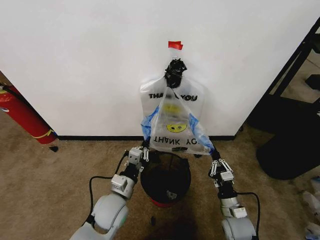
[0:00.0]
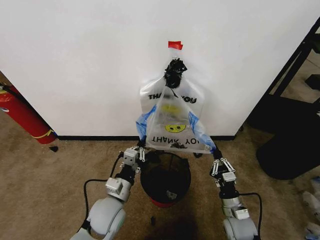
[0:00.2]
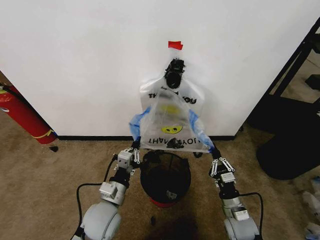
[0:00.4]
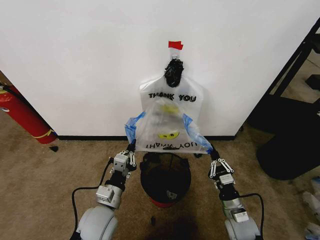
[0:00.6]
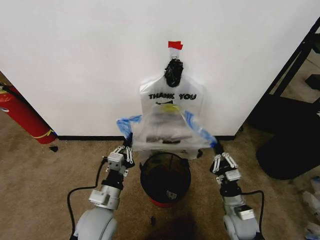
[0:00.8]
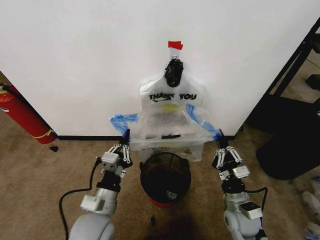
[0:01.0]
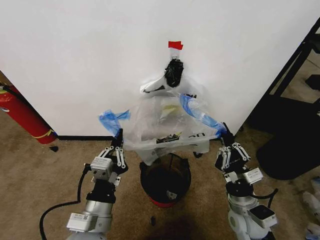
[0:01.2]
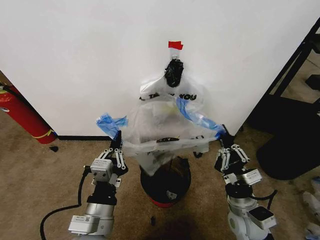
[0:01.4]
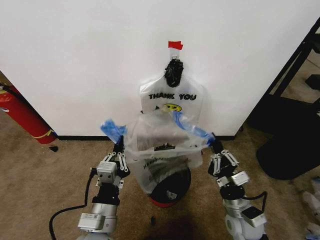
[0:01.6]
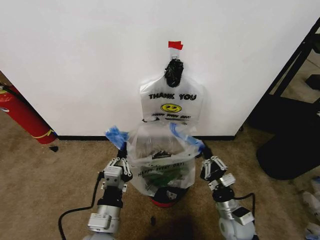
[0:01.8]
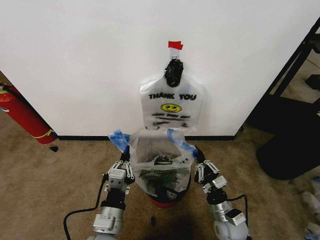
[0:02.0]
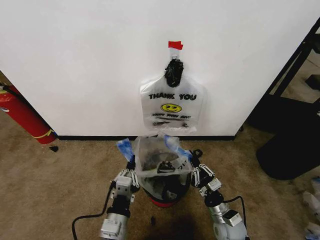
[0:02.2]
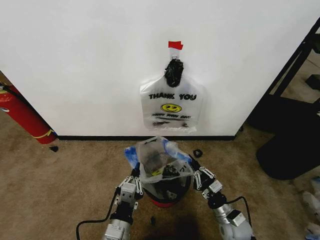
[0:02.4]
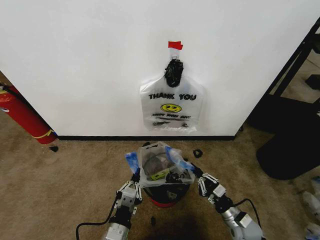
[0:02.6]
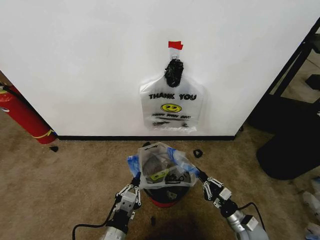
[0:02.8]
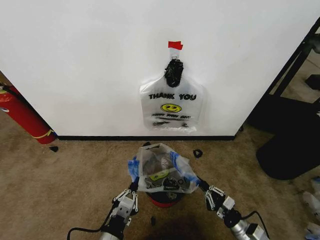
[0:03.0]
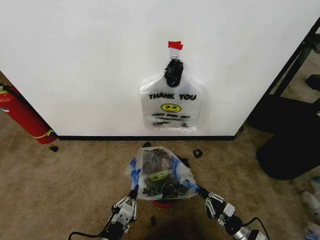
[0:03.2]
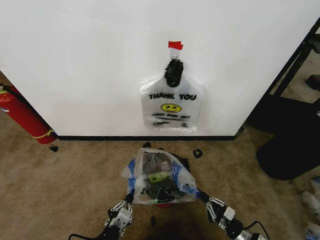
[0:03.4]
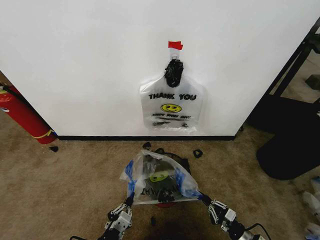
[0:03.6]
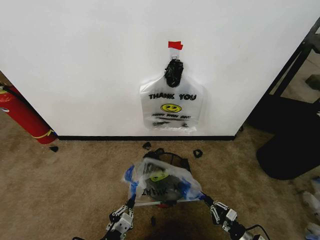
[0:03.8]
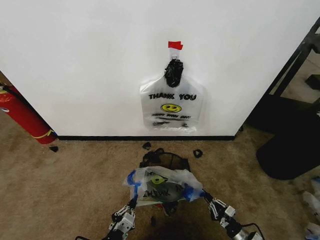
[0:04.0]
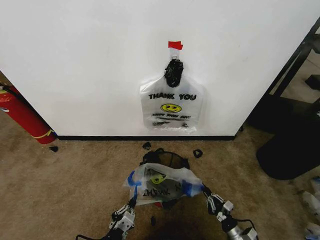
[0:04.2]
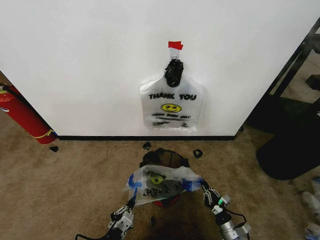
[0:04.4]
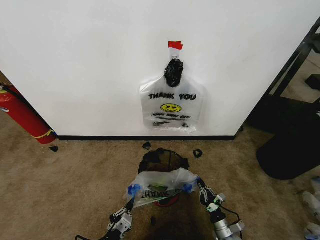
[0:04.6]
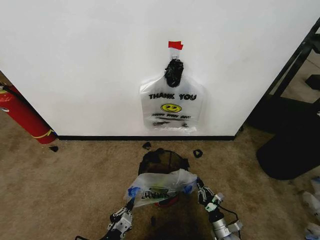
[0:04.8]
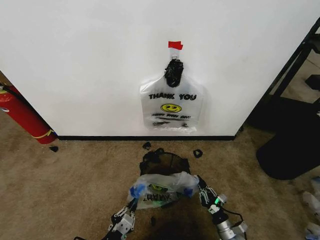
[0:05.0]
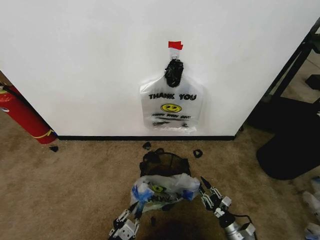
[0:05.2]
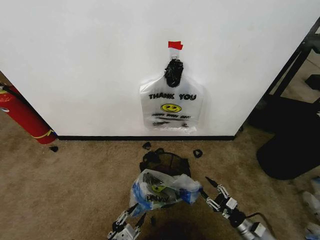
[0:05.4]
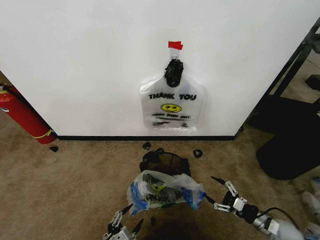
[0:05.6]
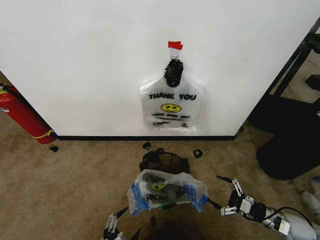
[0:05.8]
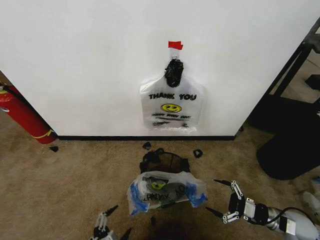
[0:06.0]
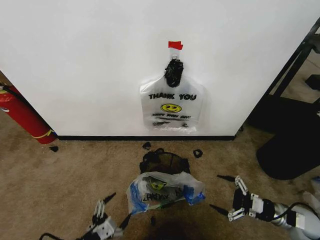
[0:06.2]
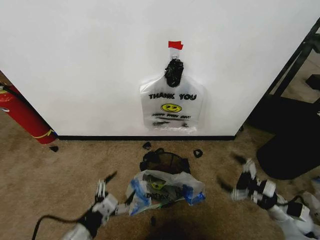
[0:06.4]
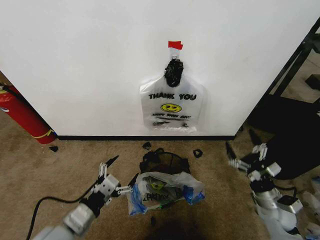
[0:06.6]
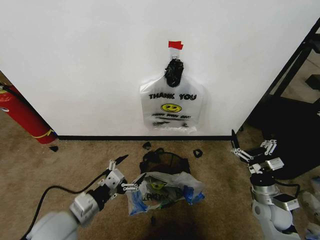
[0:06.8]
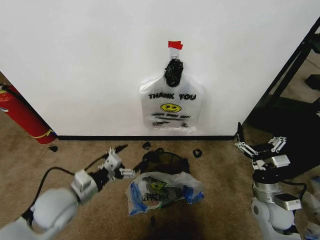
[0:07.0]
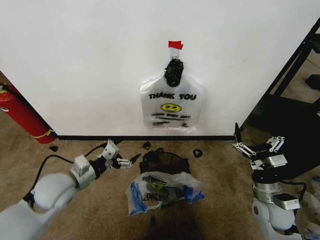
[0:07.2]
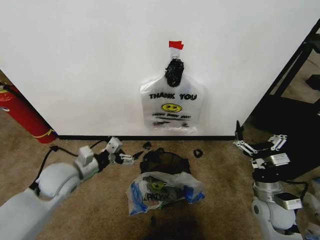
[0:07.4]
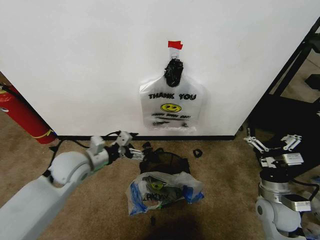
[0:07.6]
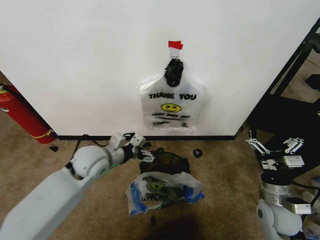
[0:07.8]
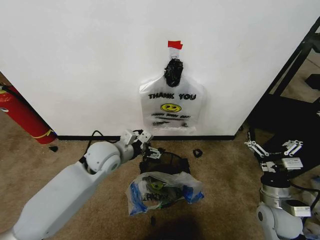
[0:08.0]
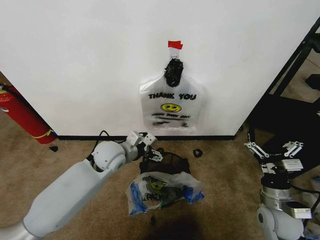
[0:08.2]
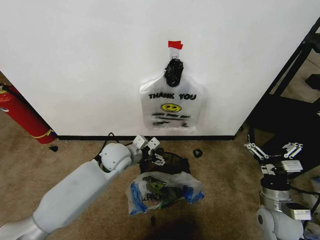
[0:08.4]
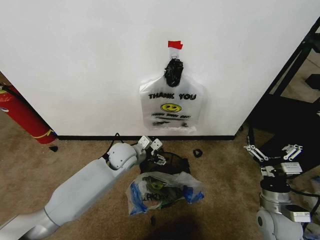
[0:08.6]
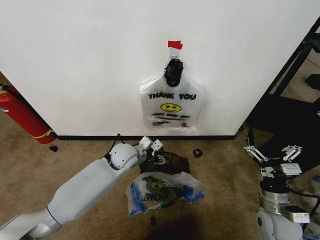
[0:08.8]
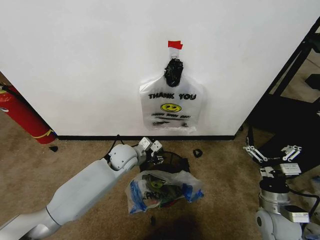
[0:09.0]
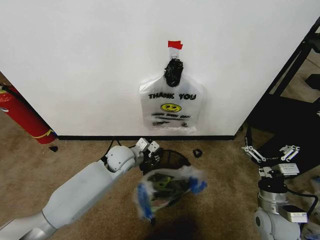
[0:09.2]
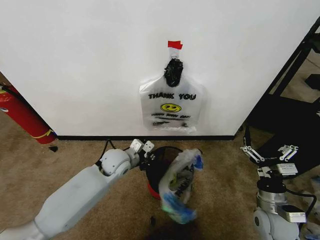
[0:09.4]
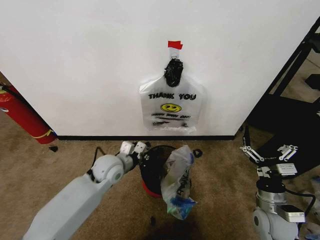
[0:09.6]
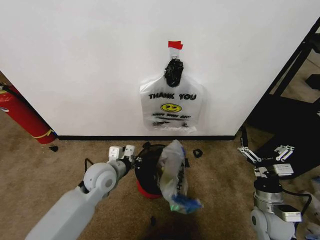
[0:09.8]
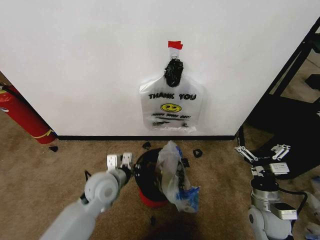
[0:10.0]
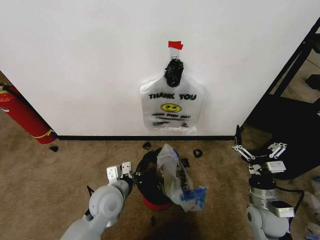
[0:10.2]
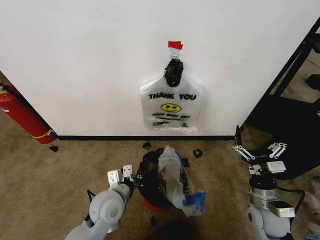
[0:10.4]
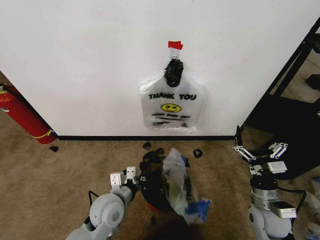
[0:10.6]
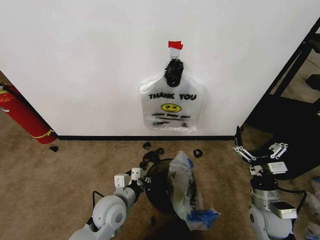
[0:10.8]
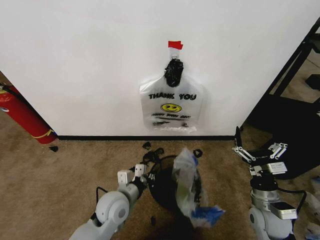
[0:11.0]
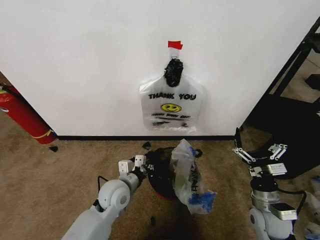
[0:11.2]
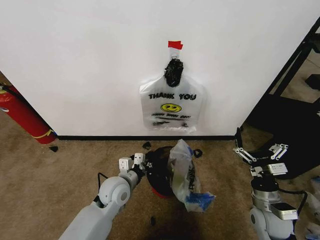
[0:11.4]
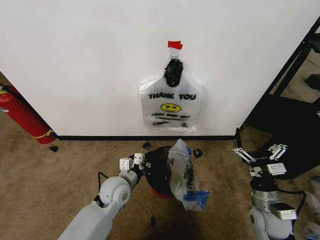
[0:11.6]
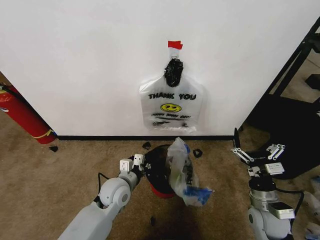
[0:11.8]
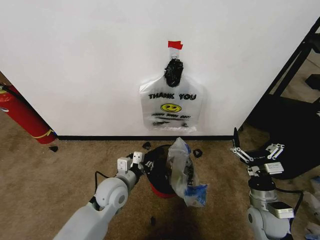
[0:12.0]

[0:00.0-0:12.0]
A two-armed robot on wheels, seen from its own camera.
Task of the whole recording: Pick up the garbage bag from the wall and place it over the trash bin.
0.0 to 1.6 s: The left gripper is displaced backward and upward by about 15 cm. Meanwhile the right gripper shifts approximately 10 cm upward.
1.6 to 3.0 s: The left gripper is displaced downward by about 10 cm. The right gripper is displaced downward and to the right by about 15 cm.
3.0 to 4.4 s: The two grippers go about 10 cm downward.
4.4 to 6.0 s: The right gripper shifts roughly 20 cm upward and to the right, and opens up. The left gripper shifts about 10 cm upward and to the left, and opens up.
6.0 to 7.6 s: The right gripper shifts approximately 15 cm to the left and upward; the left gripper is displaced forward and upward by about 30 cm.
7.6 to 9.0 s: The left gripper heads to the right, forward and downward, covering roughly 15 cm, and closes up.
9.0 to 10.4 s: The left gripper heads backward, covering approximately 15 cm, and closes its fingers.
10.4 to 12.0 s: The grippers stay close to where they were, moving slightly.

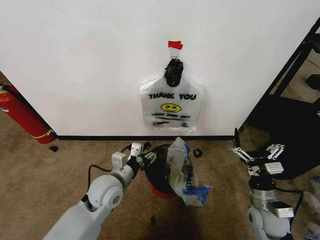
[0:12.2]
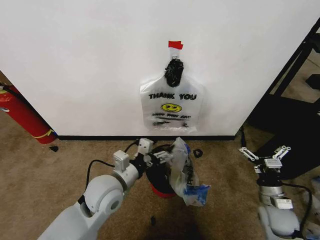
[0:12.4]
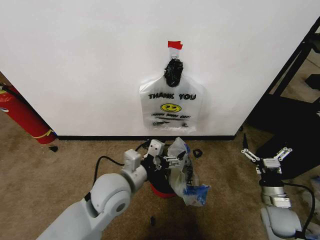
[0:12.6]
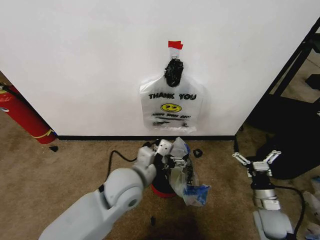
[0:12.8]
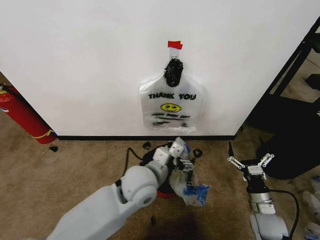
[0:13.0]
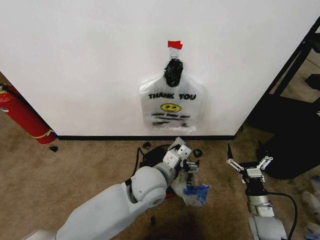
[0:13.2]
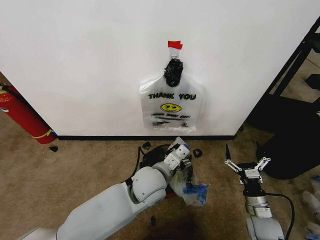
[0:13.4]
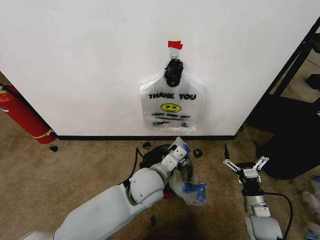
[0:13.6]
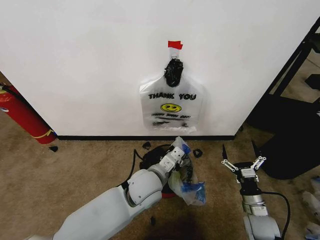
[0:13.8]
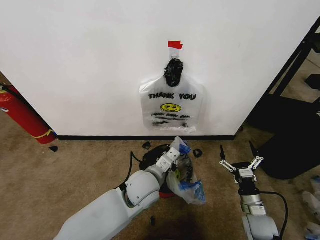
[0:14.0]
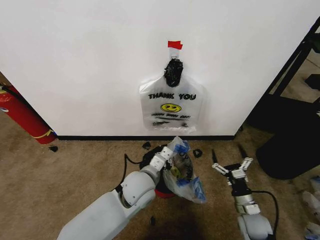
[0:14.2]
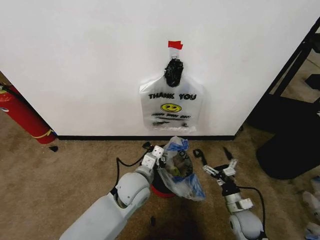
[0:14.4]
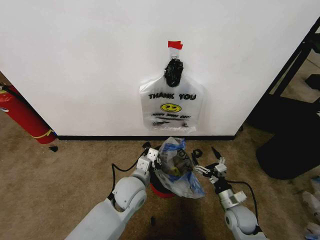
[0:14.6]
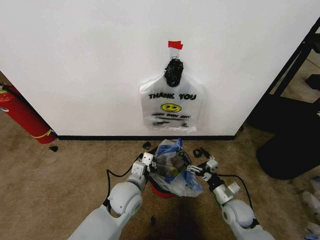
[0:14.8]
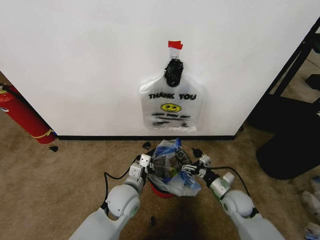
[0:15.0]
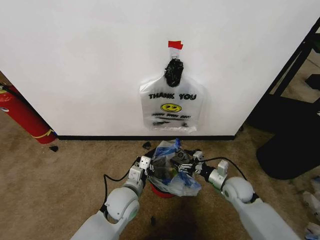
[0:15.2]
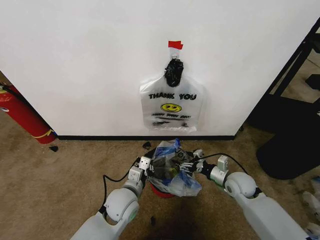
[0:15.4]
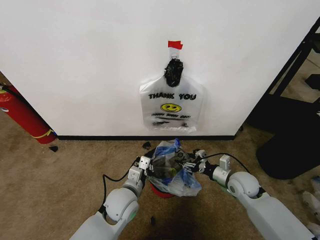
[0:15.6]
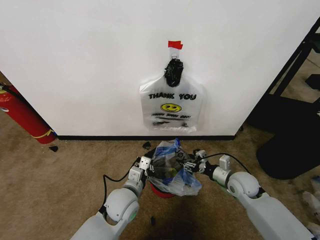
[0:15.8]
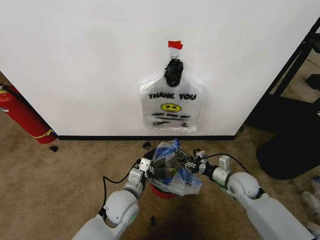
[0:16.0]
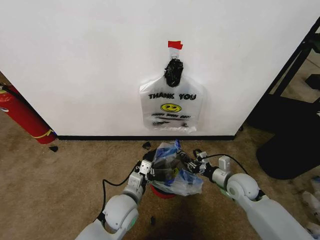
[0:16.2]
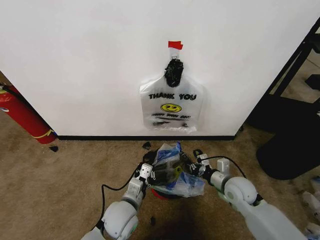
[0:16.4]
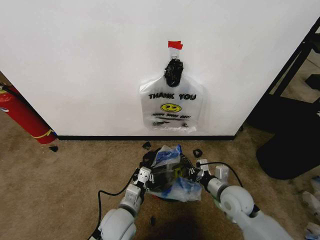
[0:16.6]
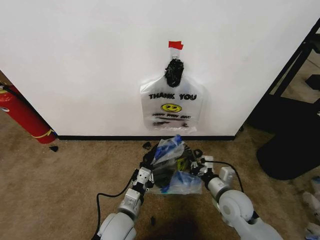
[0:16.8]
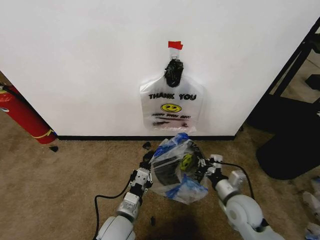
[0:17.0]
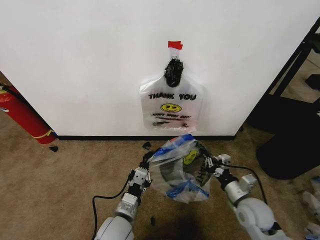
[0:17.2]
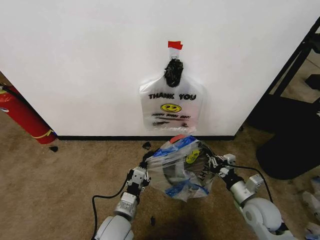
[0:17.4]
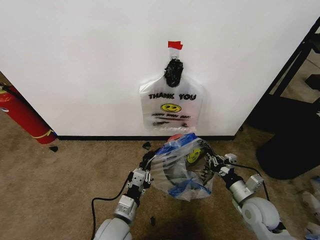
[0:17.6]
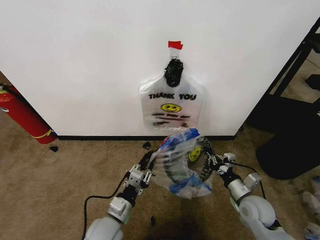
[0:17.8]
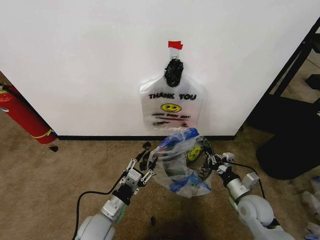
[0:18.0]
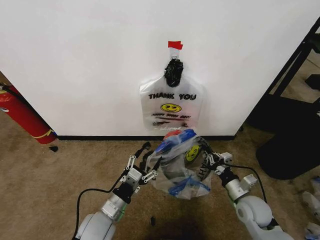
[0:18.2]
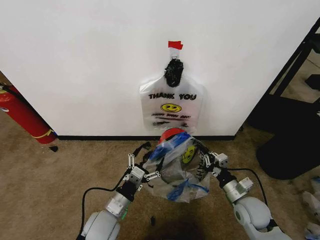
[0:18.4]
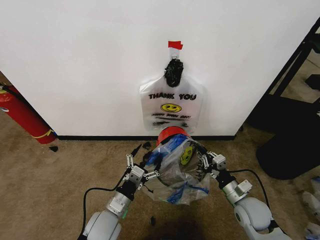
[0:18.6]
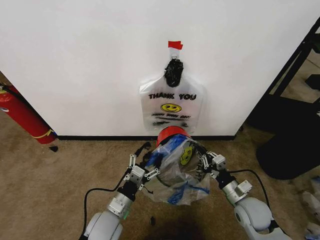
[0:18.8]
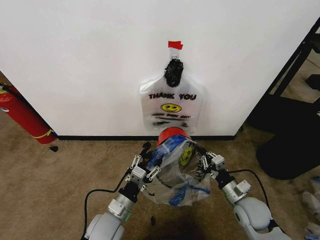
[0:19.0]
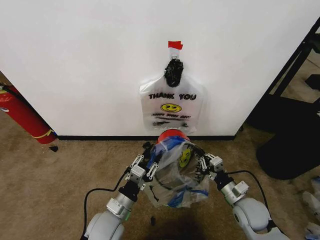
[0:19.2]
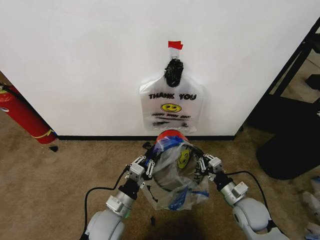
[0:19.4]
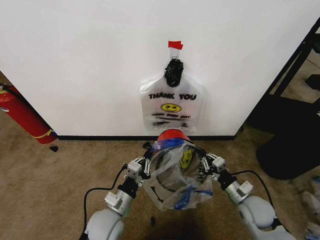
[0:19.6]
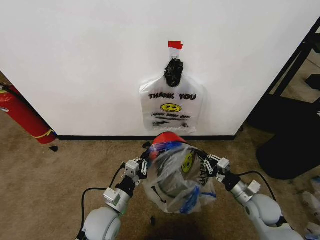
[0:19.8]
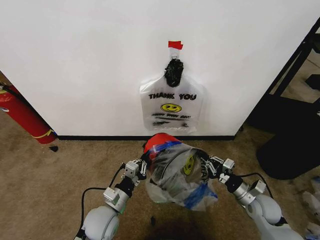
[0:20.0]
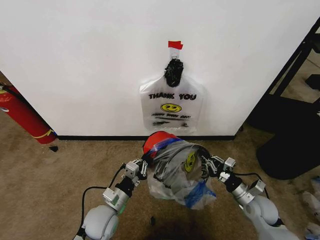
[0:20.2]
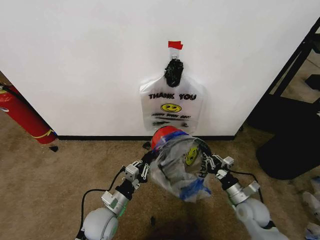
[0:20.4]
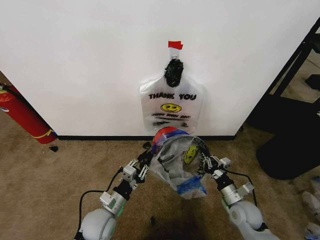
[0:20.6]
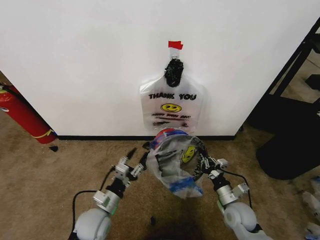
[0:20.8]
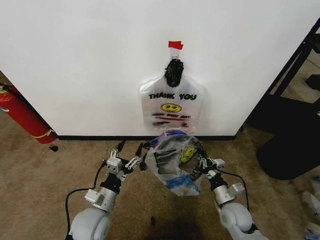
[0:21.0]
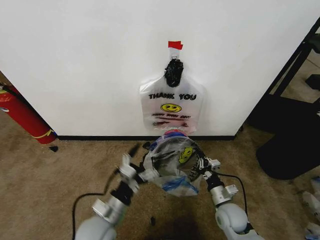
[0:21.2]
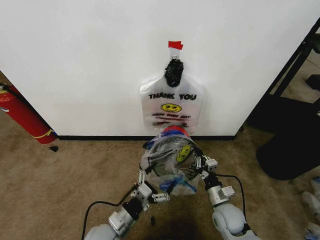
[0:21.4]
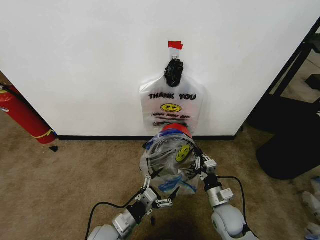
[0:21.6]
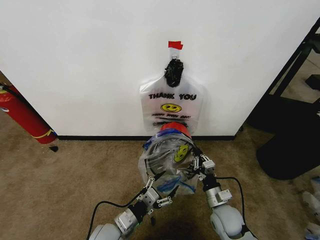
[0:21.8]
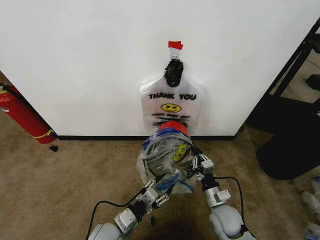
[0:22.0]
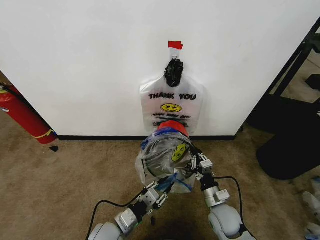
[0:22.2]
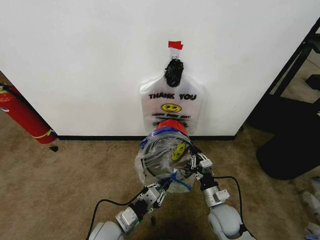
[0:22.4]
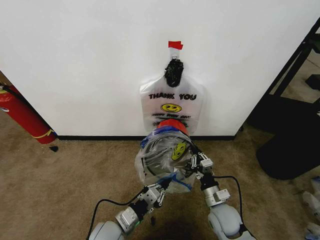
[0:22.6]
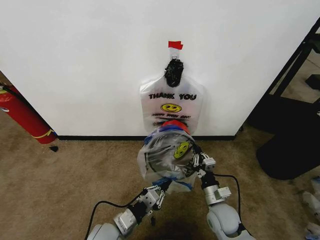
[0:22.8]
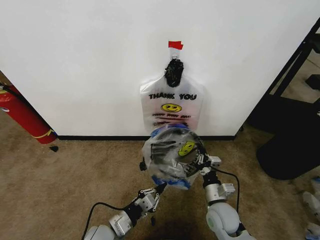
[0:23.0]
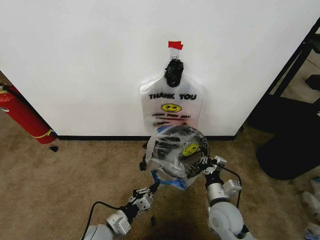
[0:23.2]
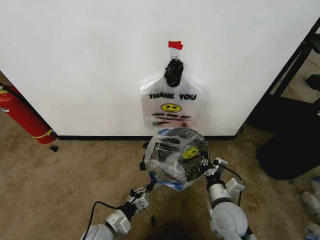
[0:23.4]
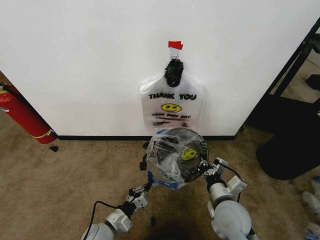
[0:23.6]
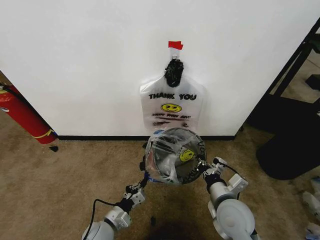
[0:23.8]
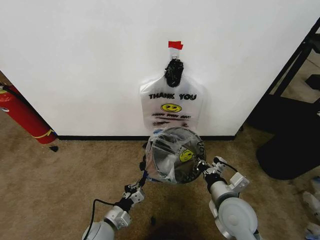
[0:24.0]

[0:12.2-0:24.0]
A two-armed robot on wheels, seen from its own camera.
Task of the whole recording: Pick up the garbage bag from the wall and place it over the trash bin.
12.2 to 13.6 s: The left gripper shifts approximately 10 cm to the right, and opens and closes again; the right gripper heads downward, covering about 5 cm.
13.6 to 15.2 s: The right gripper shifts some 10 cm forward. Meanwhile the left gripper travels downward and to the left by roughly 10 cm, and closes up.
15.2 to 16.6 s: The right gripper ends up some 10 cm from where it was, and closes its fingers. The left gripper is displaced backward by some 5 cm.
16.6 to 18.2 s: The left gripper shifts some 5 cm to the left, and opens up; the right gripper shifts roughly 5 cm to the right.
18.2 to 19.6 s: The left gripper closes its fingers.
19.6 to 21.0 s: The left gripper opens. Meanwhile the right gripper moves approximately 5 cm.
21.0 to 22.6 s: The right gripper ends up some 5 cm from where it was; the left gripper moves about 5 cm, and closes up.
22.6 to 24.0 s: The left gripper moves downward, roughly 5 cm; the right gripper heads upward, covering some 10 cm.
